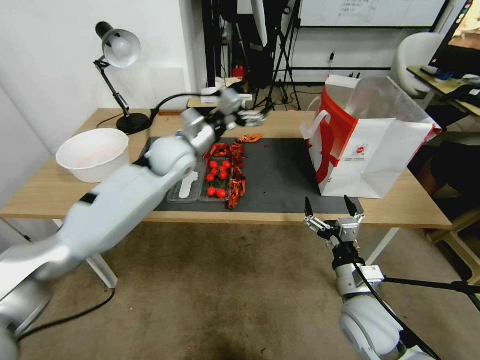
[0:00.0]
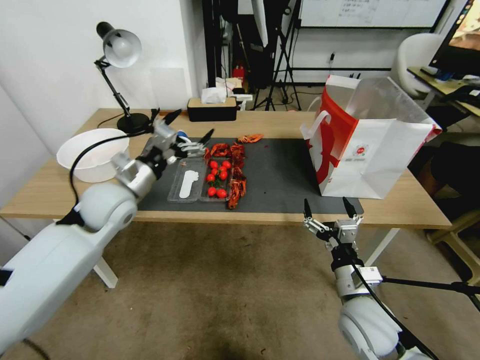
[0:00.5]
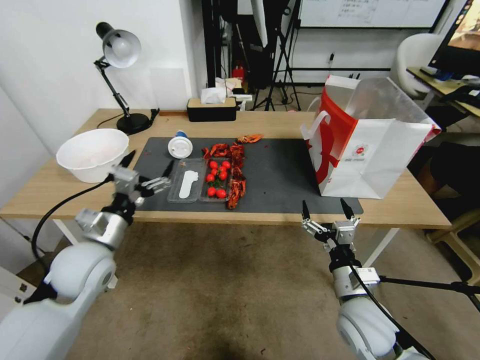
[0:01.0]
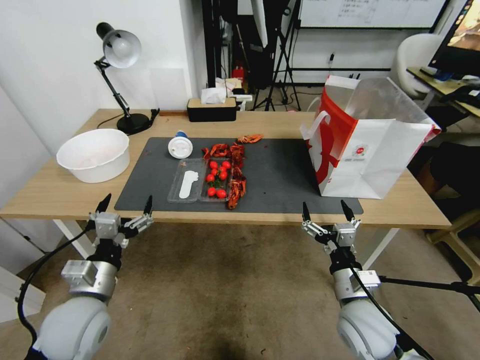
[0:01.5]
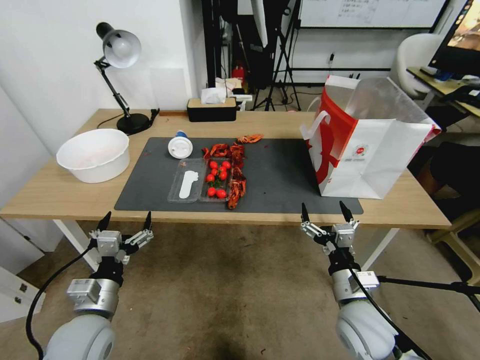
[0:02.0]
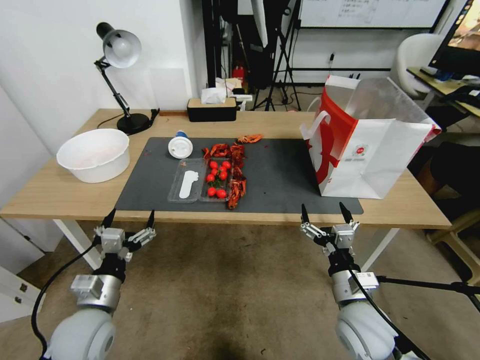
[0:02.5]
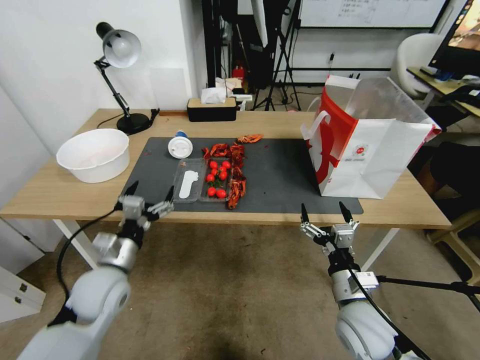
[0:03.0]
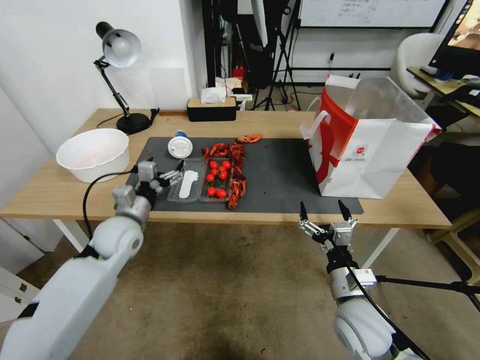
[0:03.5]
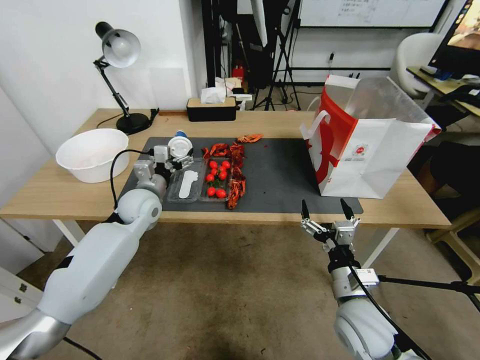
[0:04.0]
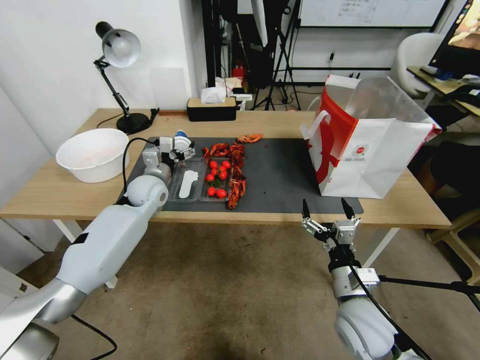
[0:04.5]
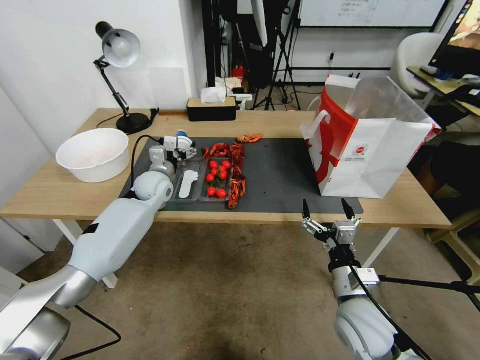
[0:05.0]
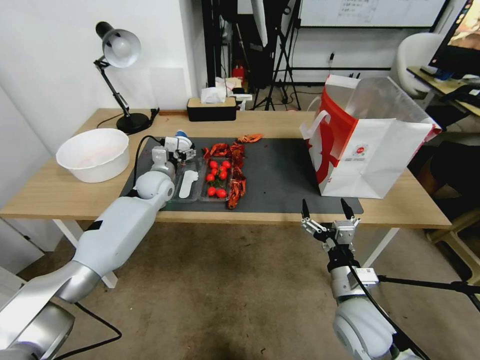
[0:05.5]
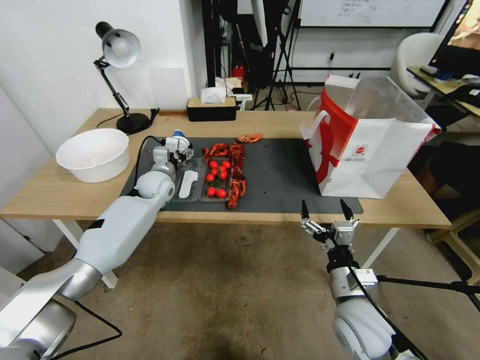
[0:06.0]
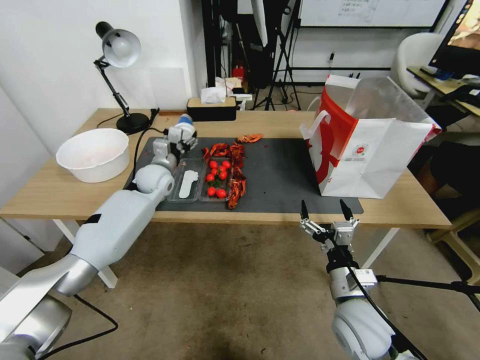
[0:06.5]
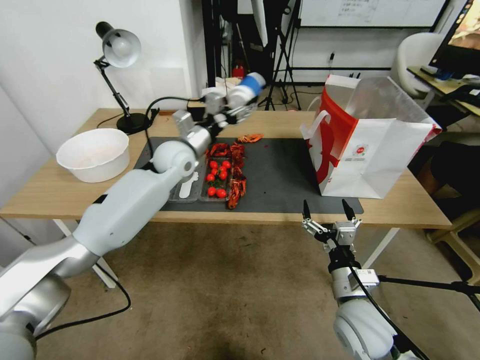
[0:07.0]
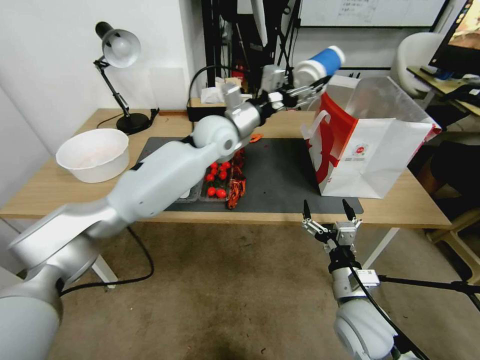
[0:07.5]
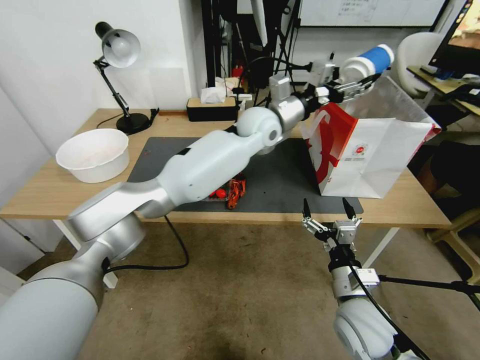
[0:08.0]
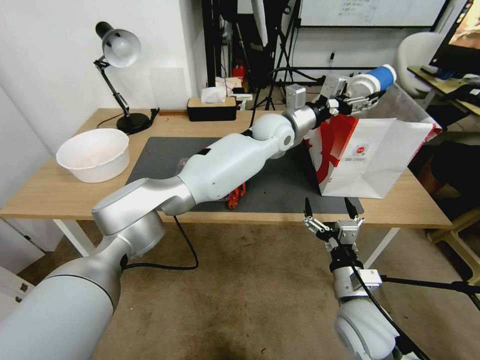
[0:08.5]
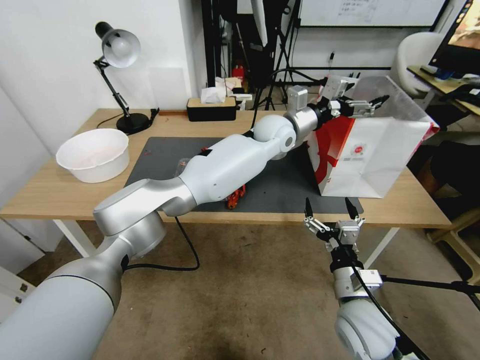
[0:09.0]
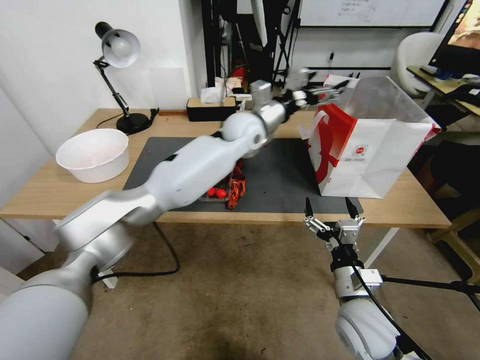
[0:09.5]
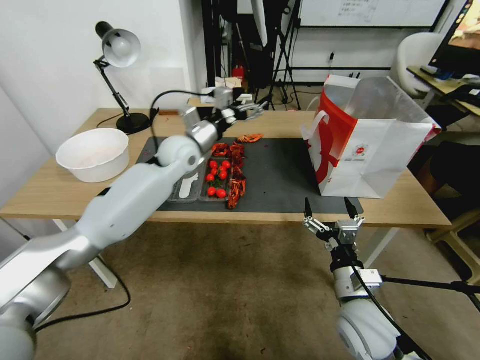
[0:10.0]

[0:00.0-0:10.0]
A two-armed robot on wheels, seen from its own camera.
0:00.0 to 0:02.0: The left gripper heads backward, downward and to the left, covering some 40 cm.
0:02.0 to 0:04.0: The left gripper travels forward by some 25 cm.
0:04.0 to 0:06.0: The left gripper travels forward by some 10 cm.
0:06.0 to 0:08.0: The left gripper shifts about 35 cm to the right and upward.
0:08.0 to 0:10.0: The left gripper heads to the left, covering some 10 cm.

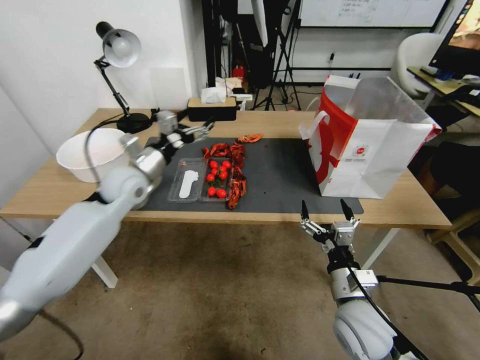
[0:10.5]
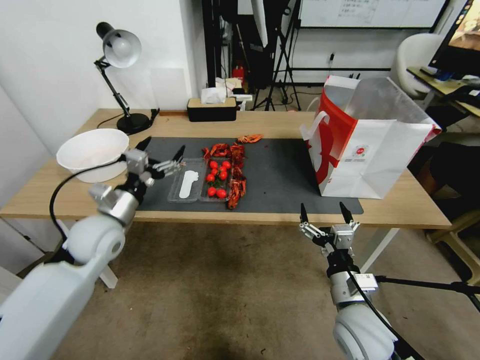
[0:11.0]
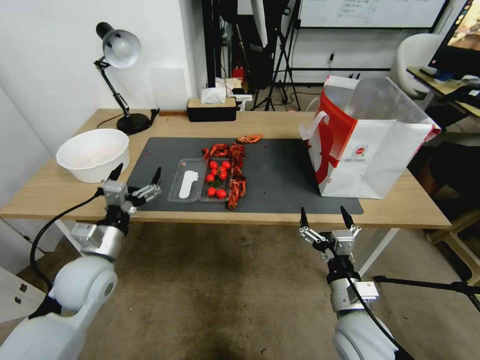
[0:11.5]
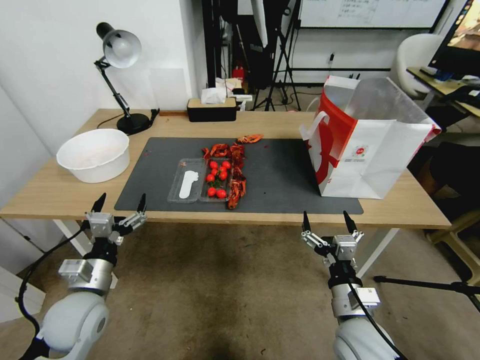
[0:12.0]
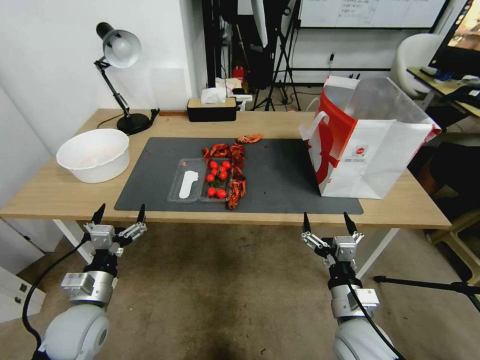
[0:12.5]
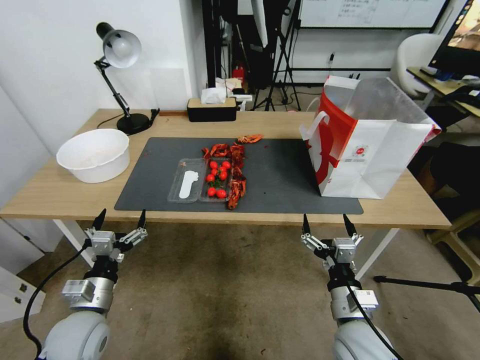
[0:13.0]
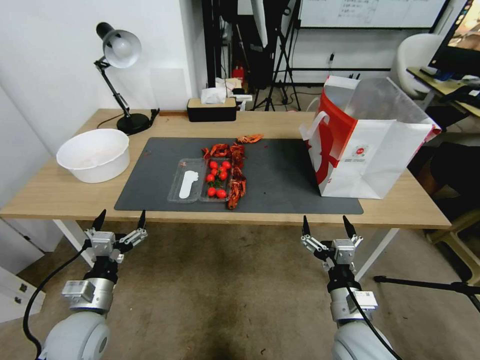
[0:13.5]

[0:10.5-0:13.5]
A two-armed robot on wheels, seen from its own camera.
0:10.5 to 0:12.0: The left gripper shifts about 25 cm backward and downward.
0:12.0 to 0:13.5: The left gripper is displaced downward by some 5 cm.
